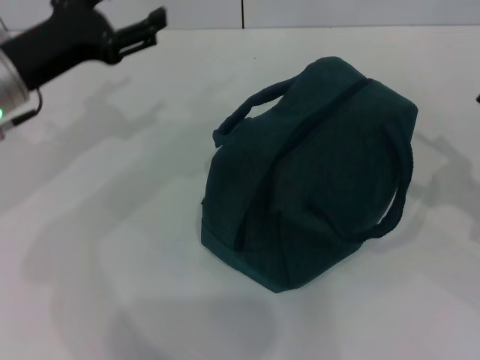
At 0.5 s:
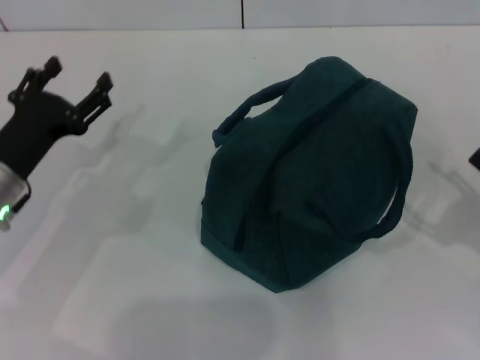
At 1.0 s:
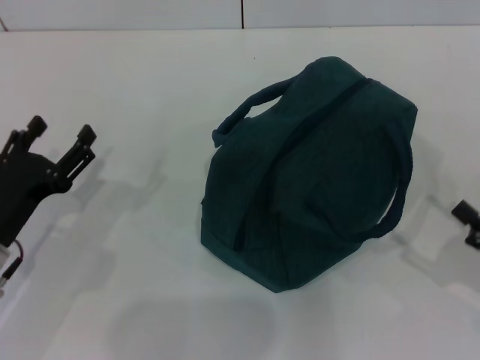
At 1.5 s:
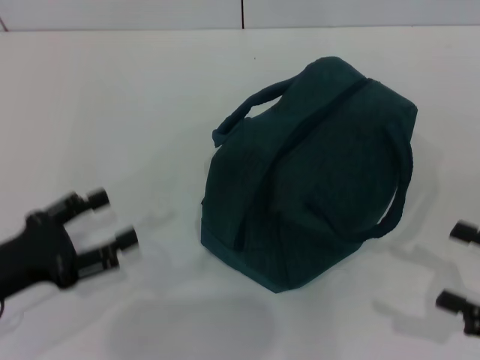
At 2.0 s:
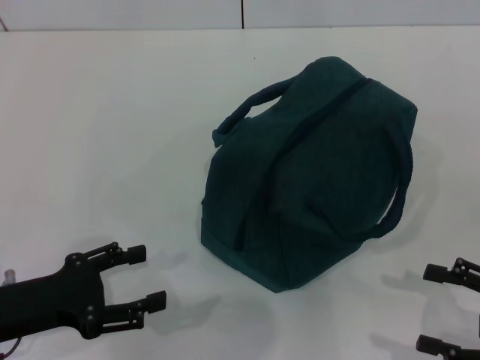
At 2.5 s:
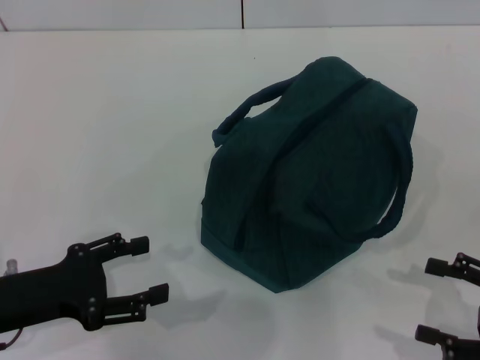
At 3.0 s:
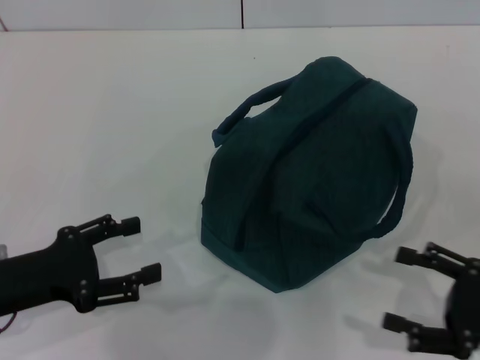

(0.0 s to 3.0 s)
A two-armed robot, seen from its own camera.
0.0 s - 1.5 s: The left gripper travels backward and downward by roughly 15 cm; the right gripper travels backward by about 10 cm.
1.5 s - 3.0 s: The grippers make only small movements.
